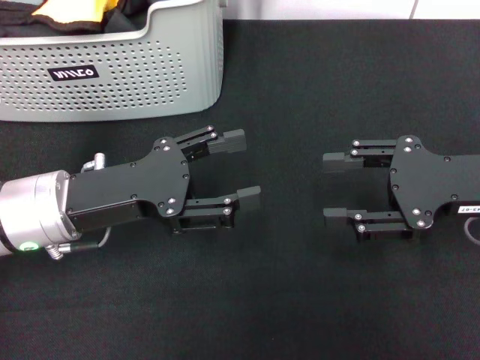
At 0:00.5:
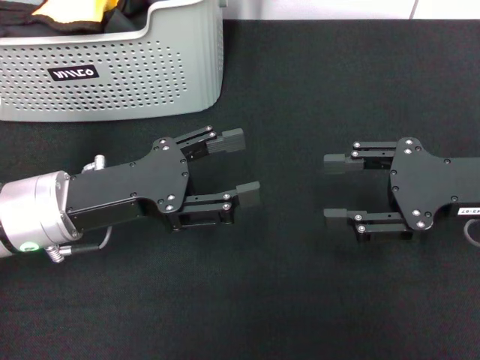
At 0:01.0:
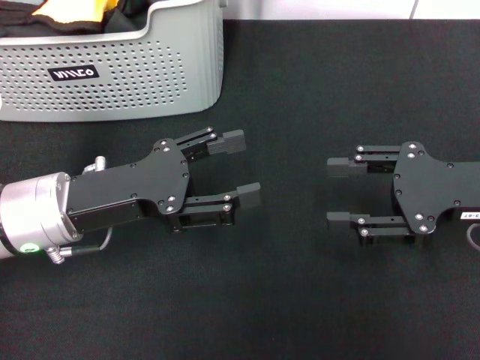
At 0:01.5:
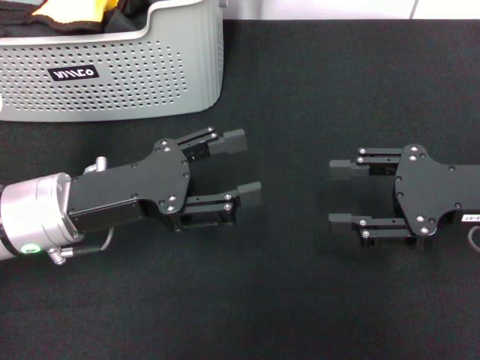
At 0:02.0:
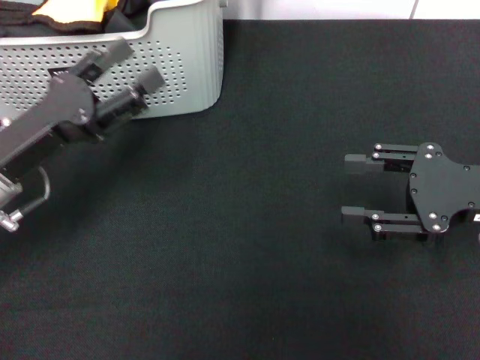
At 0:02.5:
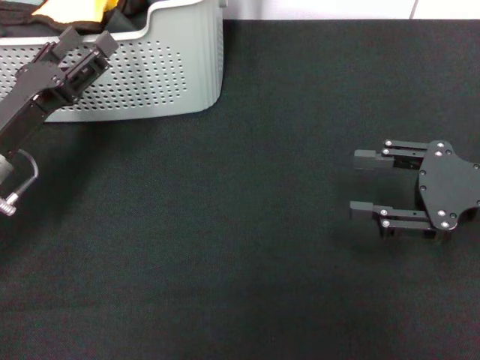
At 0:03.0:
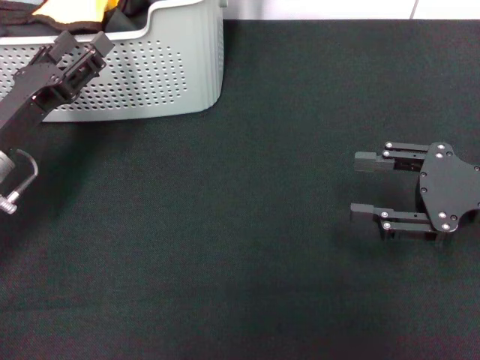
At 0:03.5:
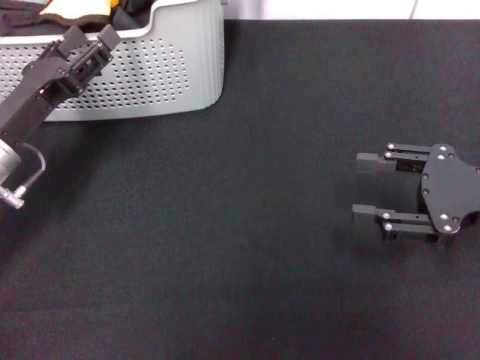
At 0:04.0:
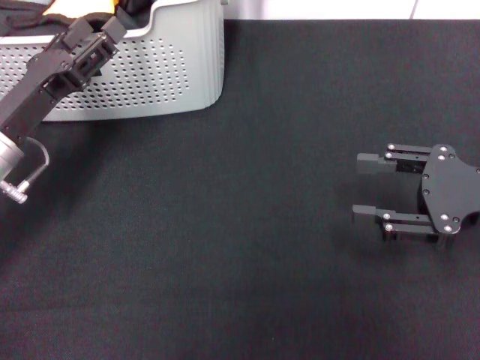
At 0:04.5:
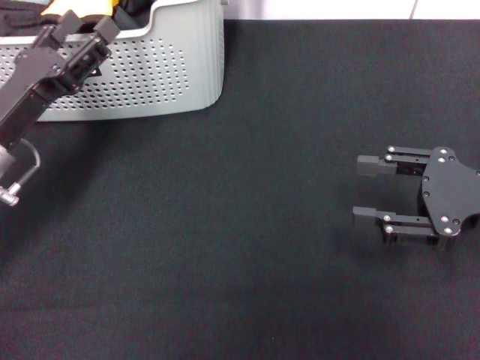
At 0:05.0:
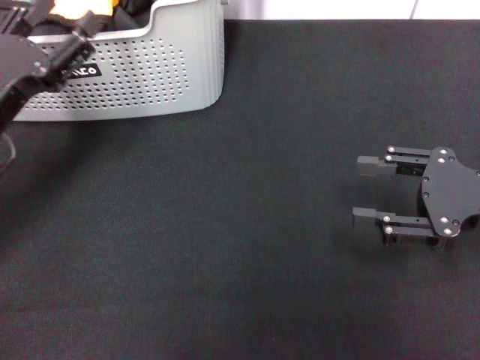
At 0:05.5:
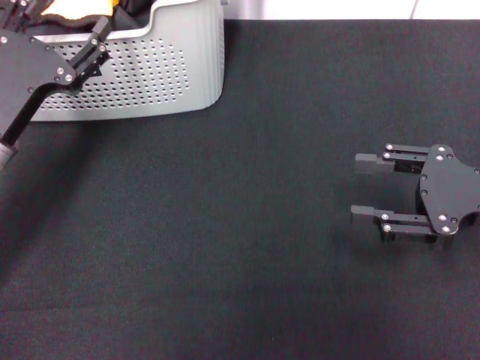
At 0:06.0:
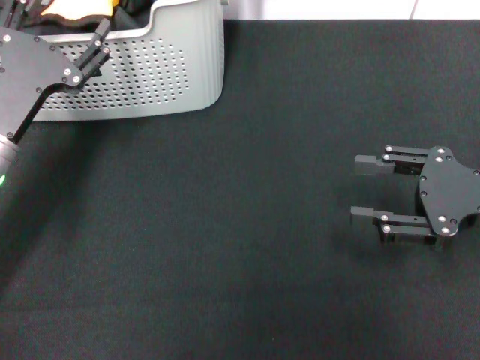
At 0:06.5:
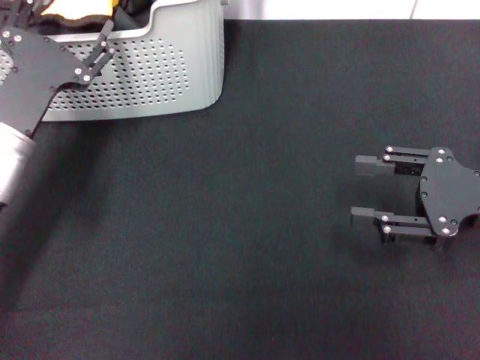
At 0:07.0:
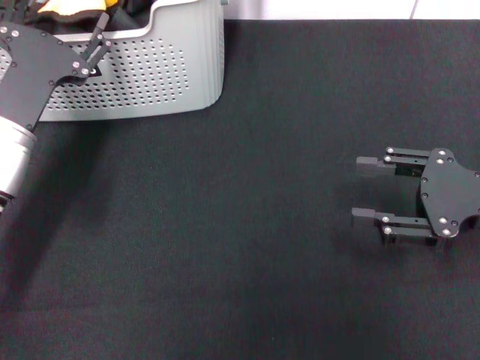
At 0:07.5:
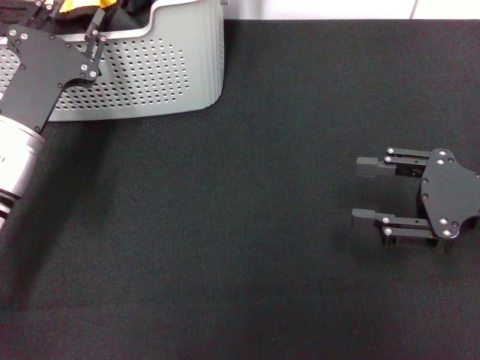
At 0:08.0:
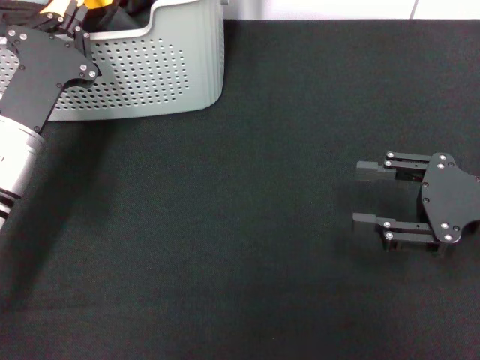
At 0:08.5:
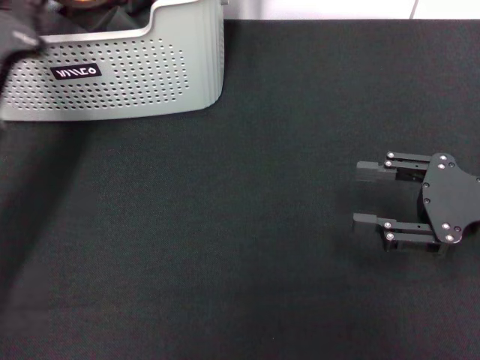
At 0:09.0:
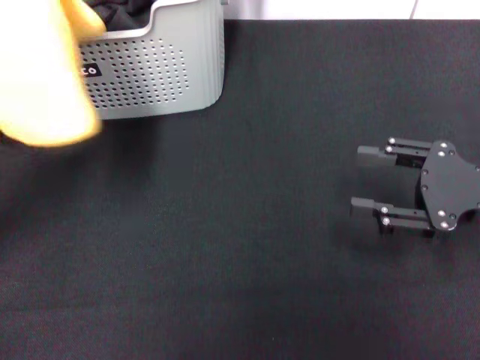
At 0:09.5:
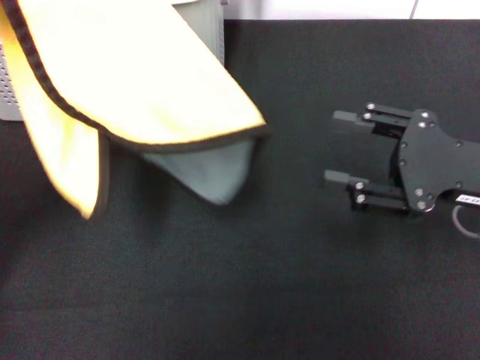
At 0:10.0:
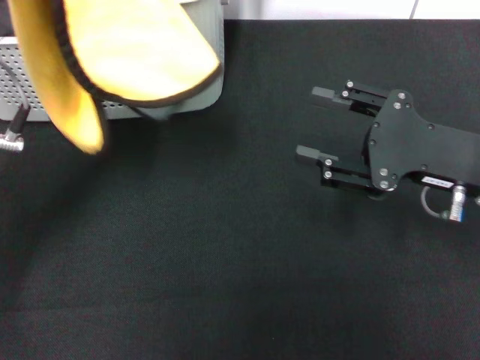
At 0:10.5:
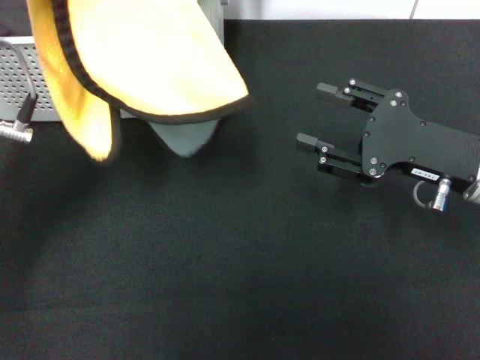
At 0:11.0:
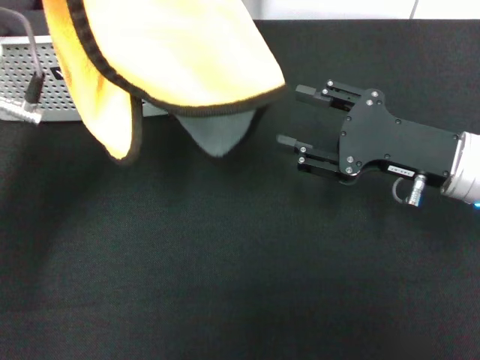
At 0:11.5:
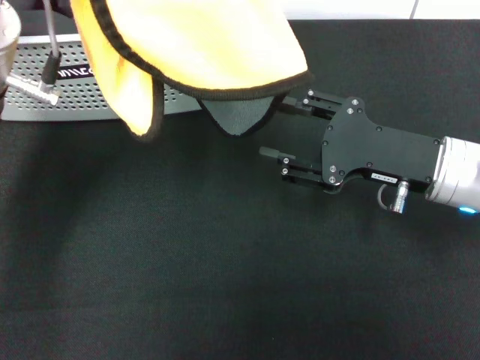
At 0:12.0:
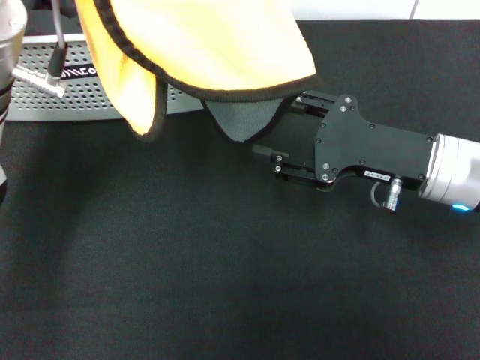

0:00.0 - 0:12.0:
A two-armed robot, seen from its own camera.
Task of the whole recording: pick up the towel from the storage box and lay it flat on the black tablecloth.
Step, 0:00.0 - 0:07.5: Pick up a towel with the left gripper.
0:06.0 - 0:08.0: The left gripper closes up.
0:08.0 - 0:10.0: The right gripper changes place by roughly 5 cm. Meanwhile the left gripper moves upward, about 10 cm.
0:10.0 - 0:12.0: The left gripper moves roughly 5 cm.

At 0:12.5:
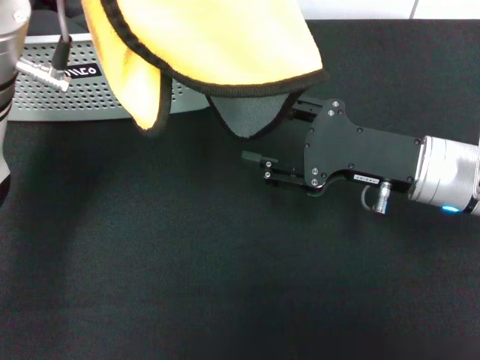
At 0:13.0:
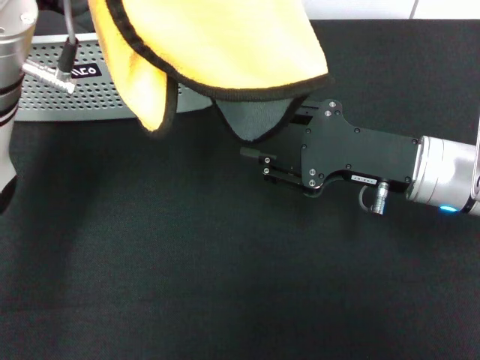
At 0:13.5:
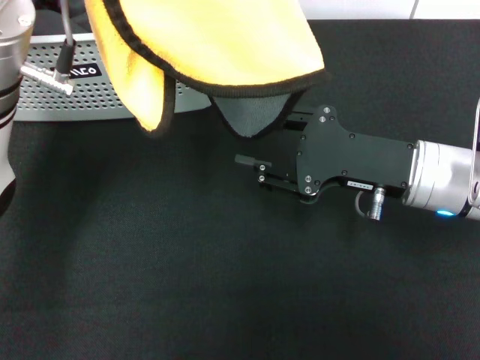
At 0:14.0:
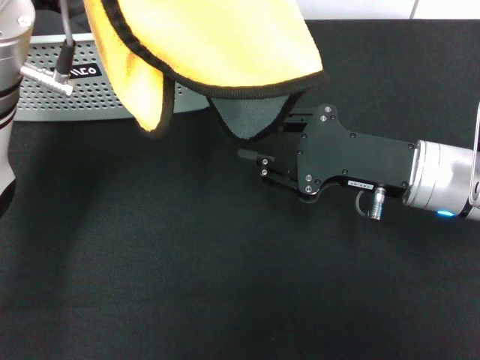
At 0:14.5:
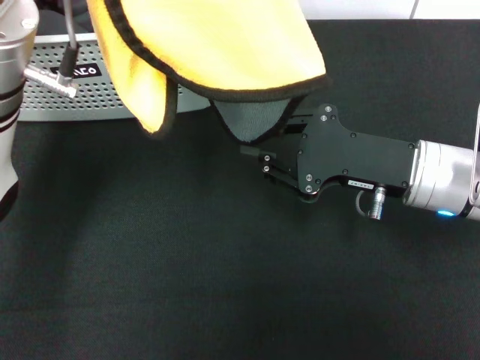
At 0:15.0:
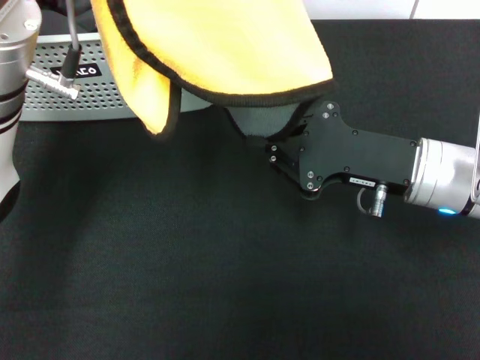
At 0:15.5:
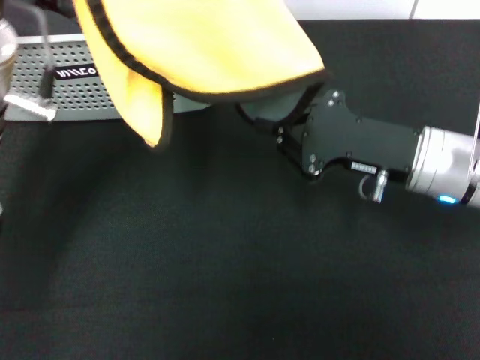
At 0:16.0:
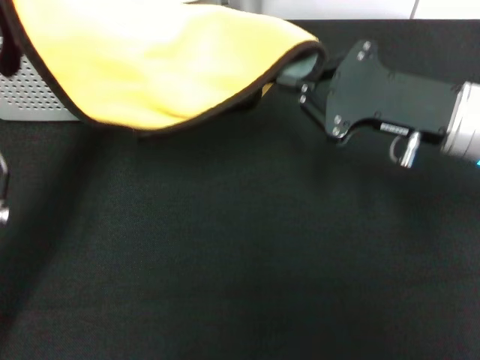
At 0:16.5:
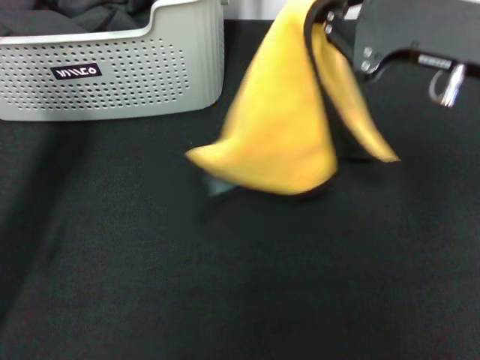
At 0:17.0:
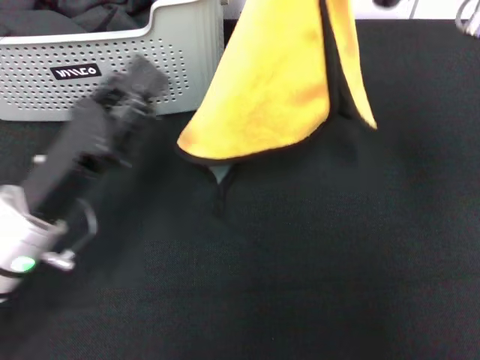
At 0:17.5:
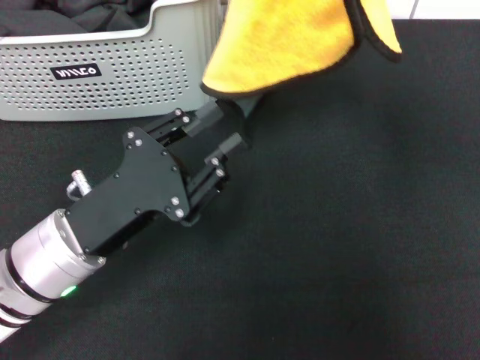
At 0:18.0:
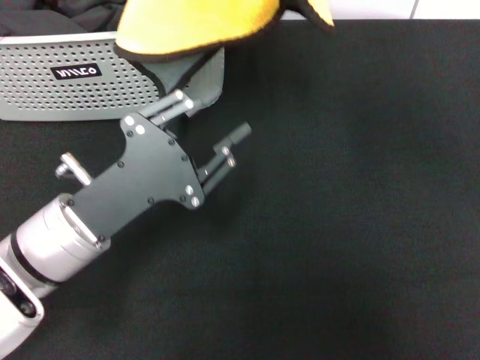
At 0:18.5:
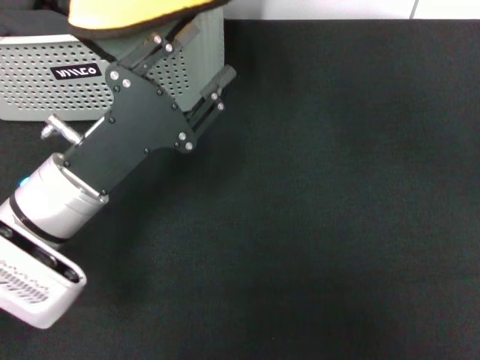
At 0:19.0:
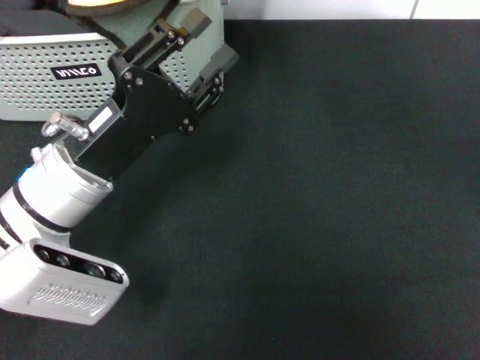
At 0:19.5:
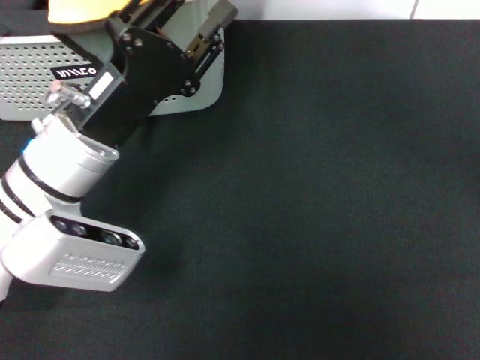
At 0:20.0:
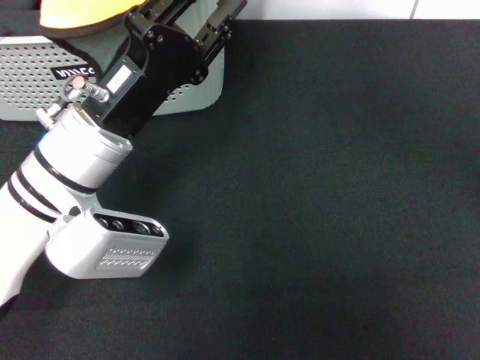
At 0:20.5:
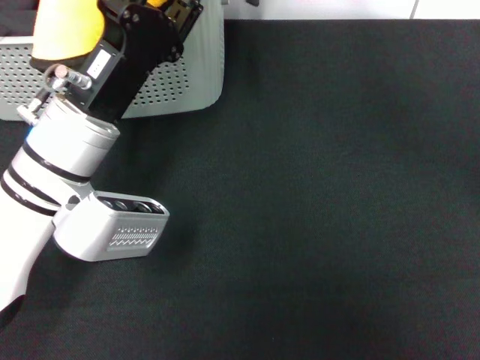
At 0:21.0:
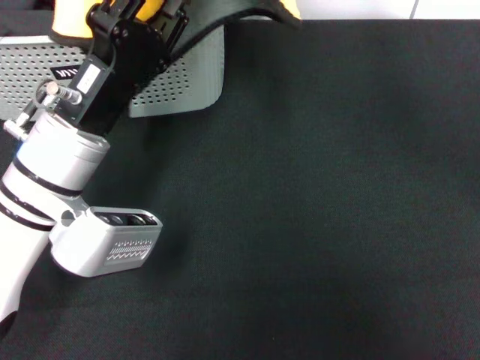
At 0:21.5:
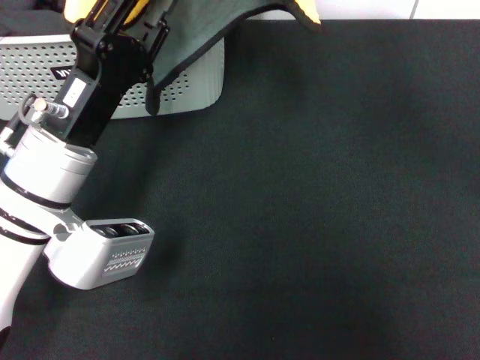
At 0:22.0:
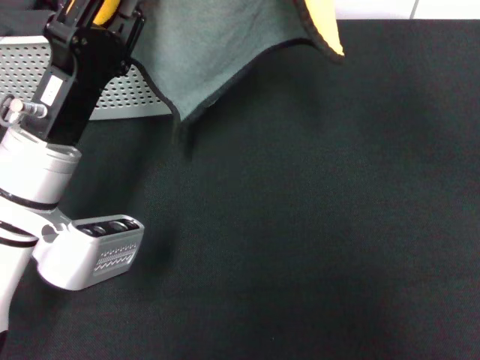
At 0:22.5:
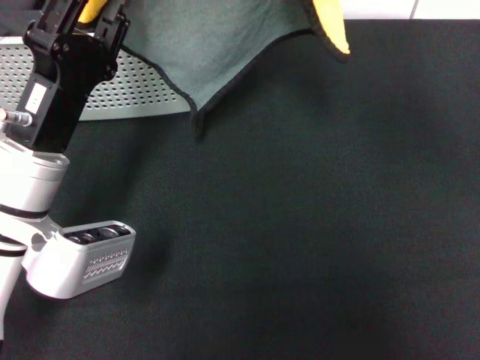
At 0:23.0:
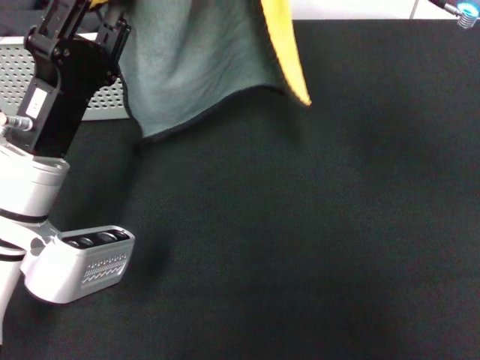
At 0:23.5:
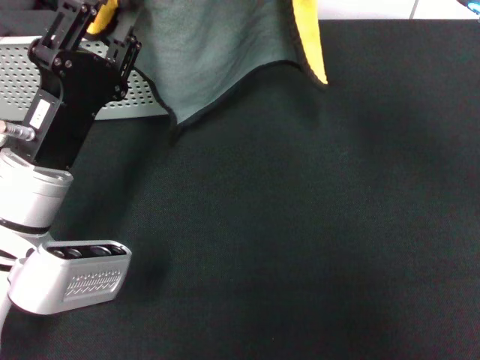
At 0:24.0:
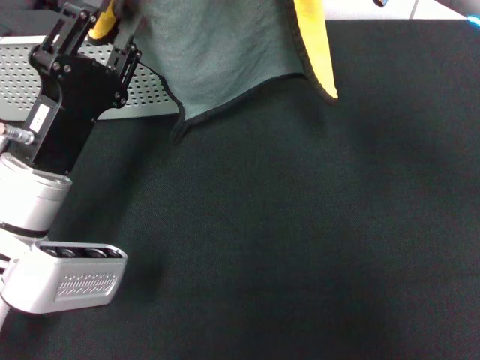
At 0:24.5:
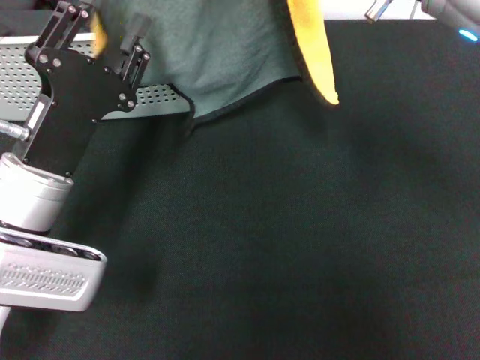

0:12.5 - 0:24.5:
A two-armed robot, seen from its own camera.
Task of the whole recording: pick up the towel from the storage box and lay it flat on the black tablecloth.
Step, 0:12.5 - 0:15.5: Spread the towel flat with the left gripper.
0:12.5 - 0:14.5: The right gripper closes its fingers.
0:14.5 - 0:16.5: The left gripper travels downward, to the left and backward by roughly 20 cm, while the right gripper is displaced upward by roughly 15 cm.
0:16.5 - 0:18.5: The right gripper moves upward and to the left, about 15 cm; the left gripper goes roughly 10 cm to the right.
0:20.5 - 0:22.5: The right gripper is displaced to the right and downward by roughly 10 cm.

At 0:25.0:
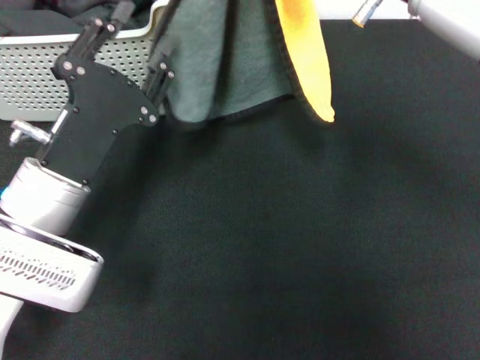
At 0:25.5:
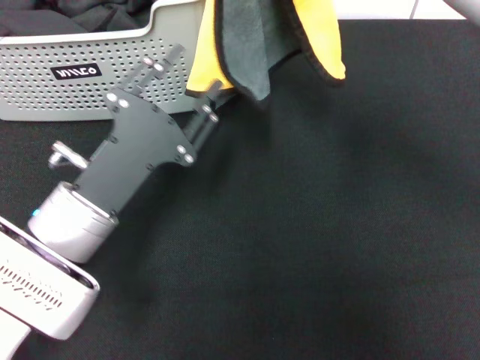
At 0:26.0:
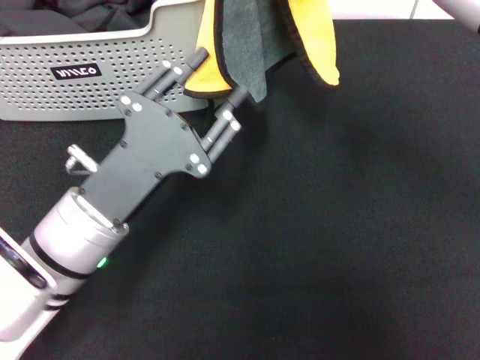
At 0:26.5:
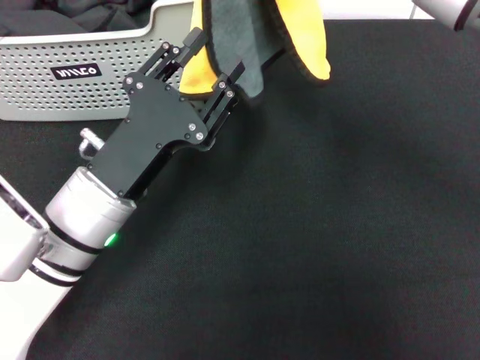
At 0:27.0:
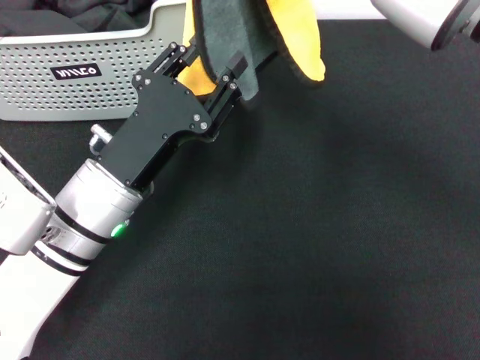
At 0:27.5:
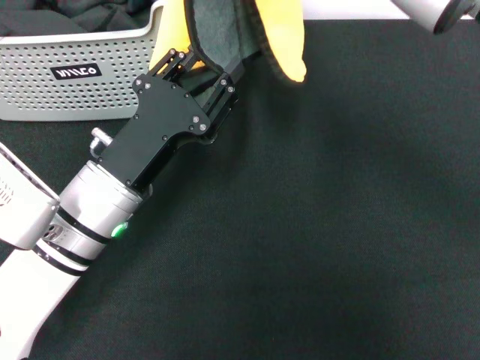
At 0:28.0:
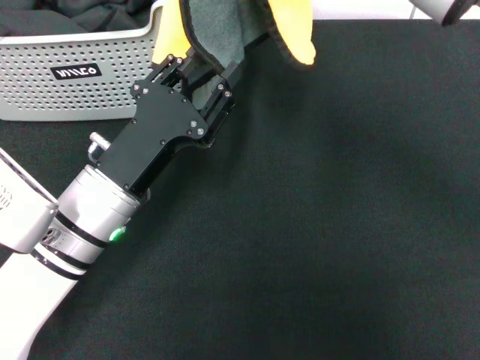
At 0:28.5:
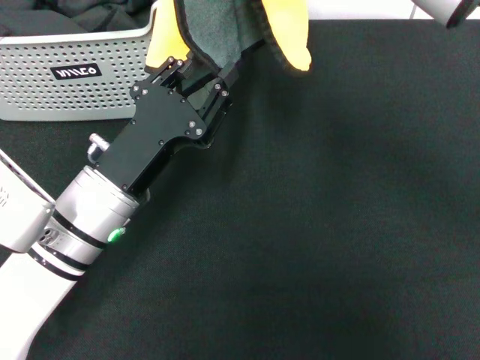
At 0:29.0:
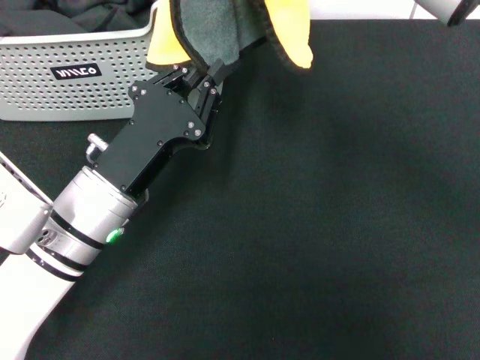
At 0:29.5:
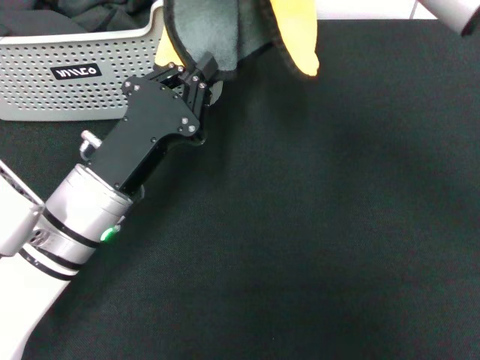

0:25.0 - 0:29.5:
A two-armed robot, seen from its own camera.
Task of the whole recording: pick up the towel from the storage box and lay it flat on the black tablecloth.
0:27.0 - 0:29.5: The left gripper closes up.
